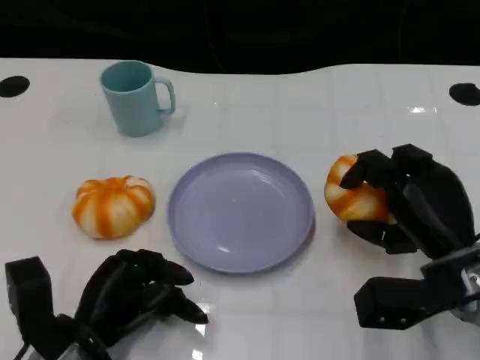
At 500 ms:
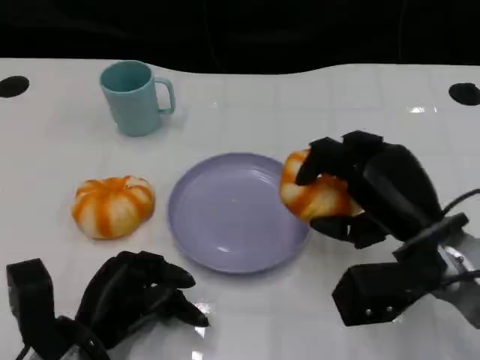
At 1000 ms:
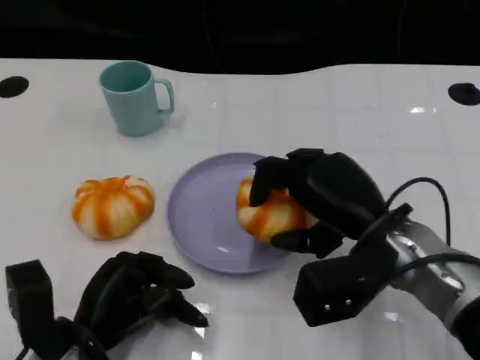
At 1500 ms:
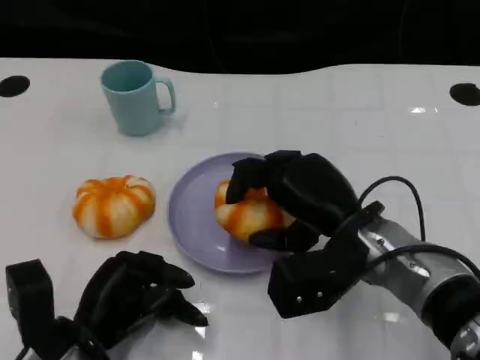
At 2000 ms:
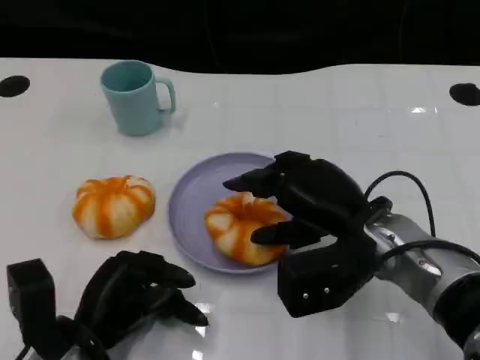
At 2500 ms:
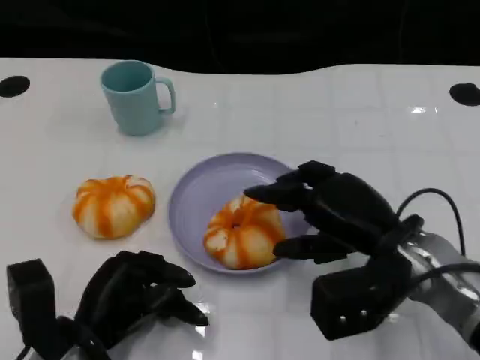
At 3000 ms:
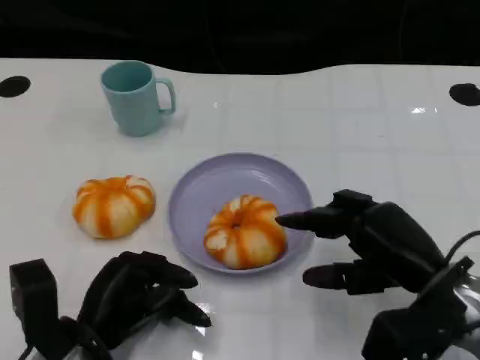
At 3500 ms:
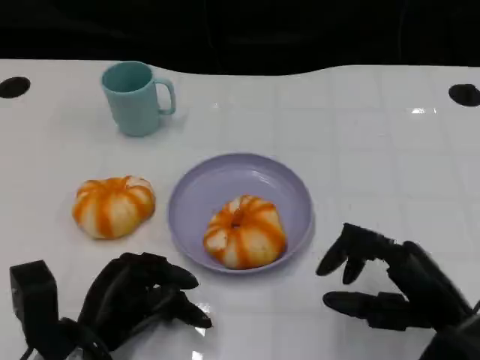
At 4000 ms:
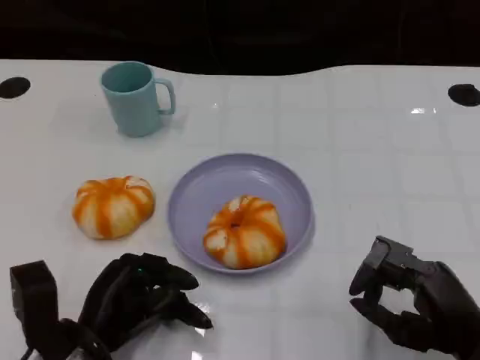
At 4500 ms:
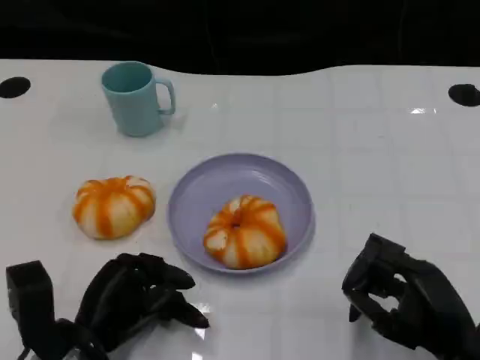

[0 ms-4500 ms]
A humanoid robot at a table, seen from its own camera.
Task of the whole recording: Grasp the bread from the table and place it into the plate.
0 ms to 2000 ms: The right hand goes some 10 cm to the left.
2000 ms to 4500 ms: The right hand goes about 15 cm backward, to the right and downward.

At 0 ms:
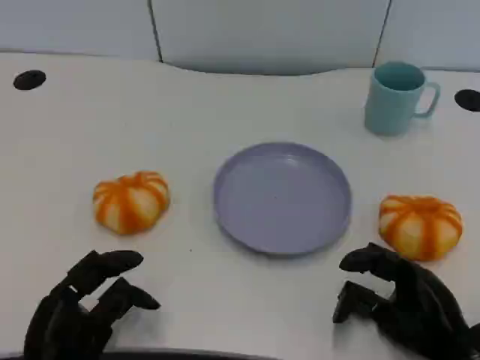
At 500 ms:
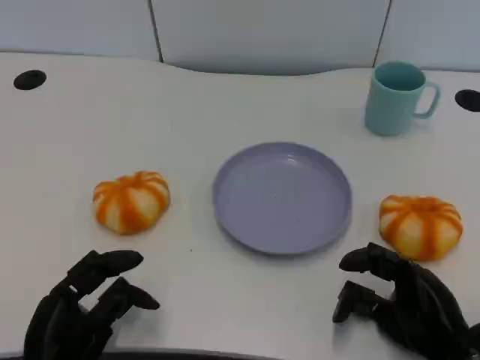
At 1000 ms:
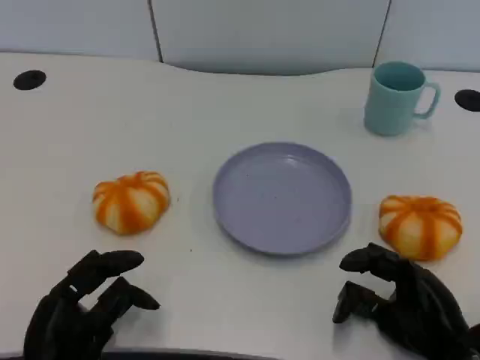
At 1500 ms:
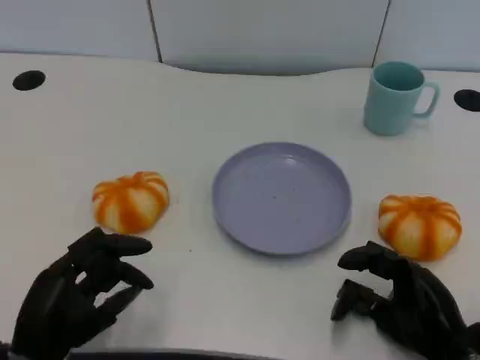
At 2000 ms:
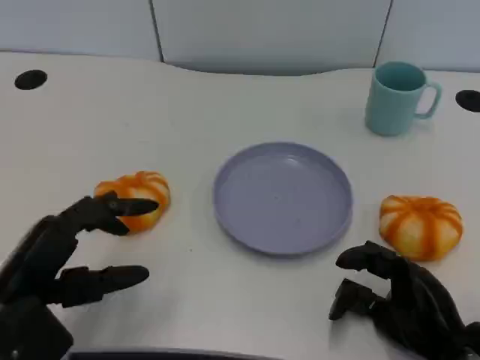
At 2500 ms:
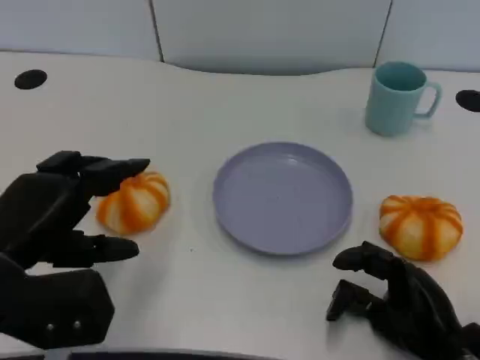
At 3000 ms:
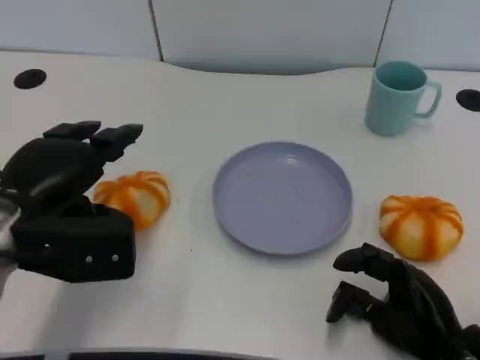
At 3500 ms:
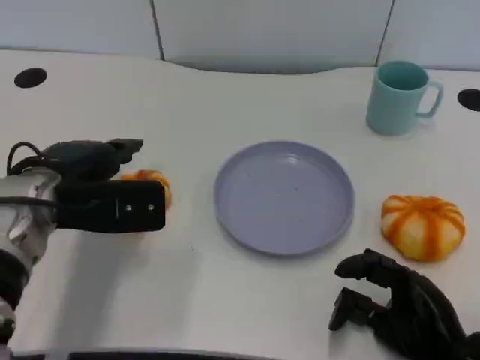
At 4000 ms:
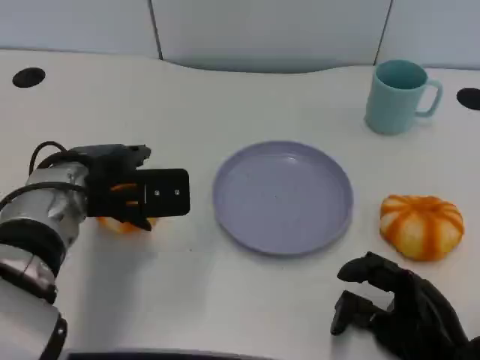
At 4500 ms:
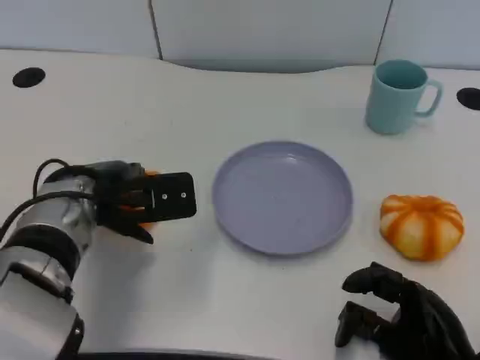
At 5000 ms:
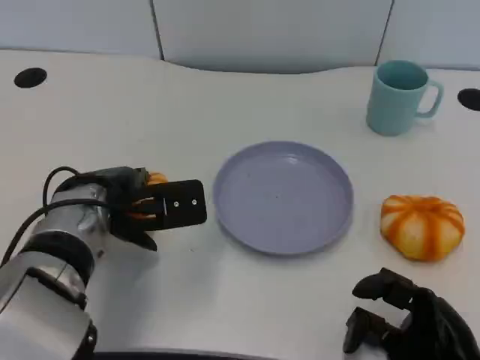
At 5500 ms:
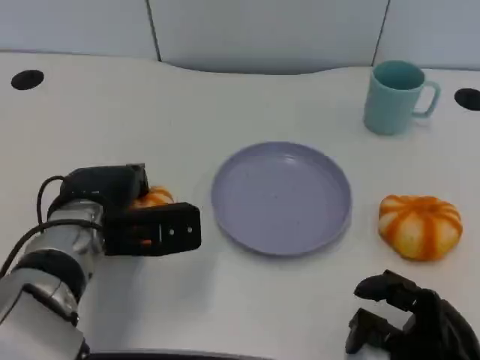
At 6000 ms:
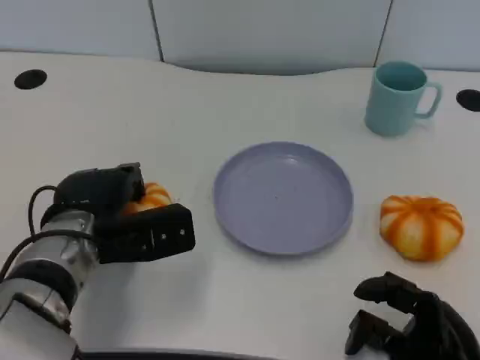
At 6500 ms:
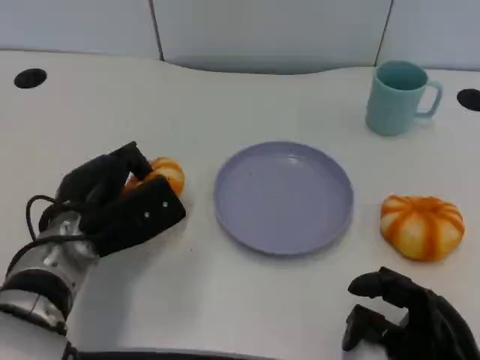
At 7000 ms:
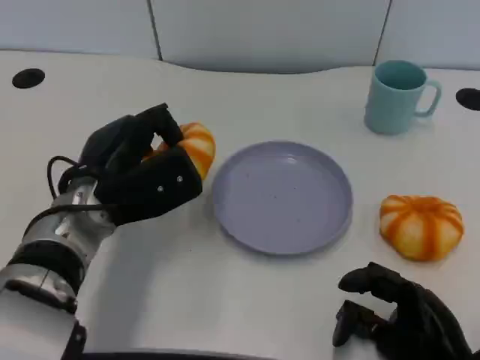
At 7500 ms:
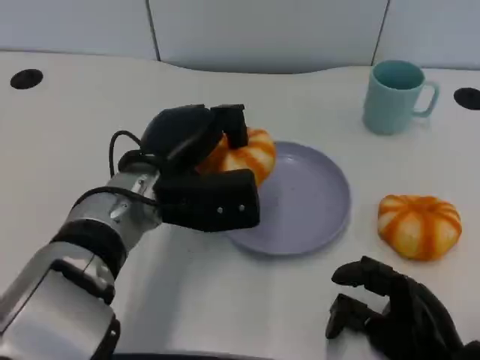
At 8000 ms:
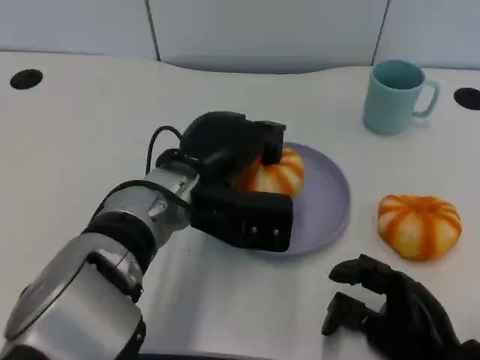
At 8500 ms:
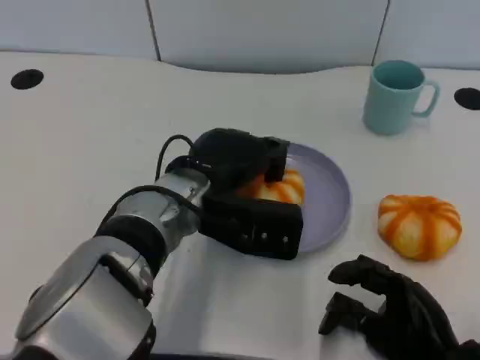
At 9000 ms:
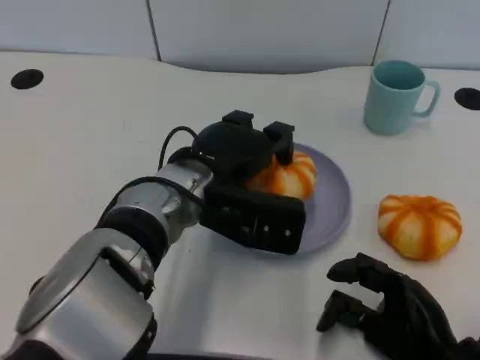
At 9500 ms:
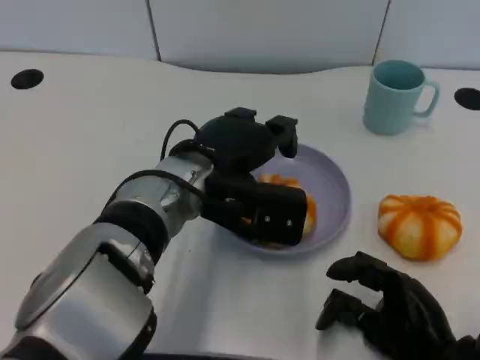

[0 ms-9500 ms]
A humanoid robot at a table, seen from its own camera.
Task of the whole recording: Grasp the bread from the table and place it into the plate.
0 ms to 2000 ms: The left hand shifts about 10 cm upward.
2000 ms to 4000 ms: The left hand is displaced forward and to the right by roughly 15 cm.
4000 ms to 5500 ms: There are only small adjustments of the hands.
5500 ms to 7500 ms: The left hand shifts about 5 cm to the right.

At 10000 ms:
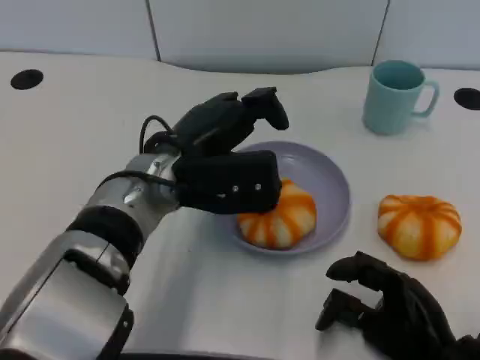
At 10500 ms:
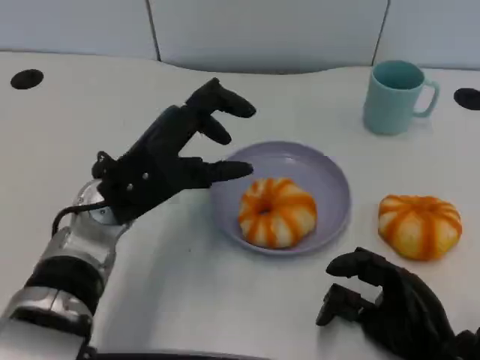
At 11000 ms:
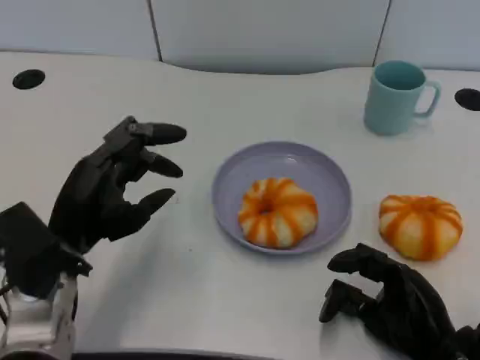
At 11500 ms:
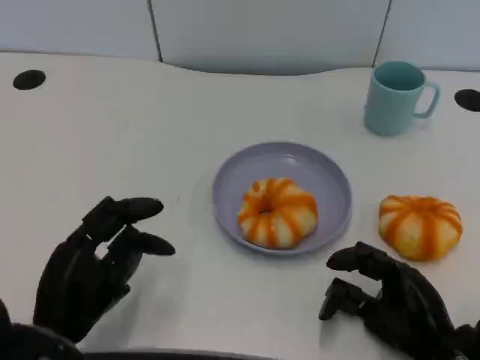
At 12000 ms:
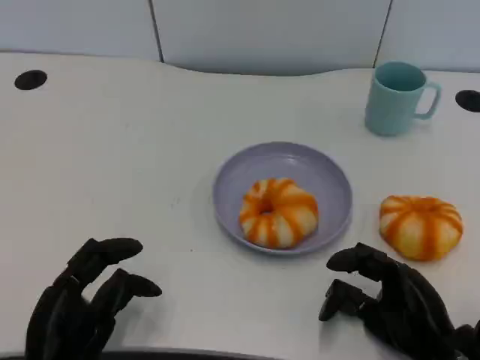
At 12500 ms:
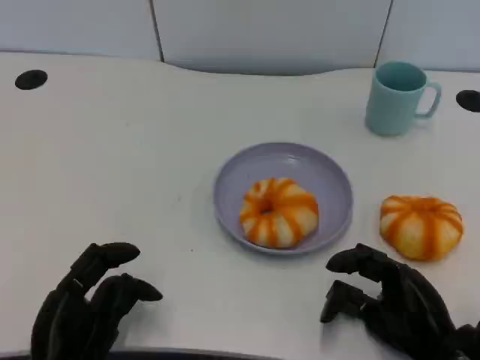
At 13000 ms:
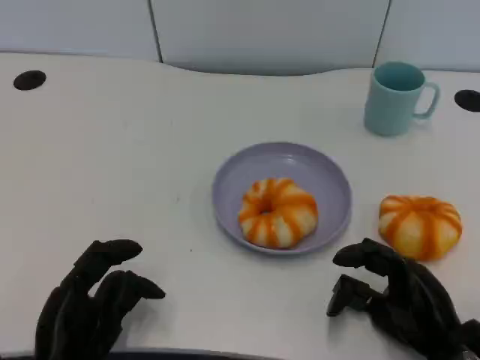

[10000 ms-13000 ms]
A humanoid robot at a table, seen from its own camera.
Task of the whole recording: Grasp the bread from the table and place it into the plate.
10000 ms to 11500 ms: The left hand shifts about 20 cm backward, to the left and downward.
11500 ms to 13000 ms: The hands move only a little.

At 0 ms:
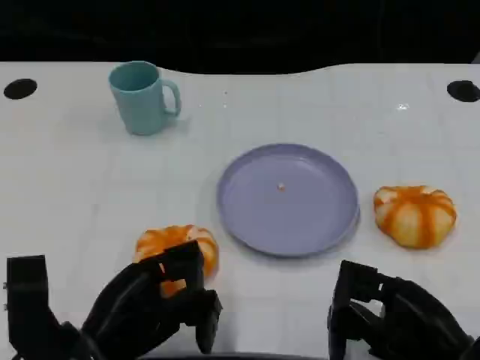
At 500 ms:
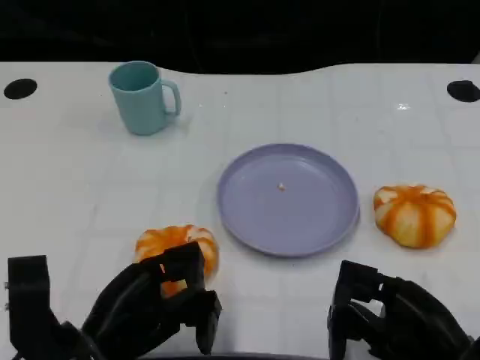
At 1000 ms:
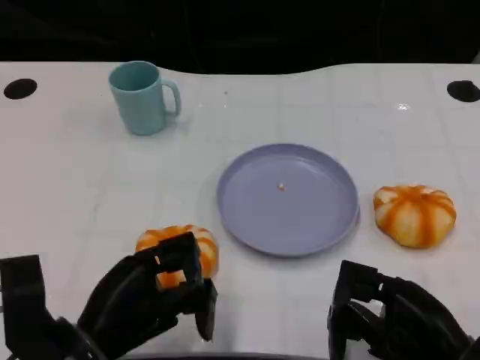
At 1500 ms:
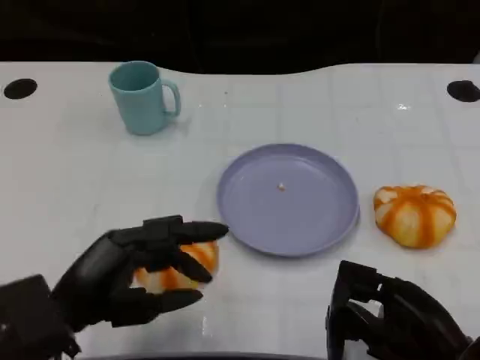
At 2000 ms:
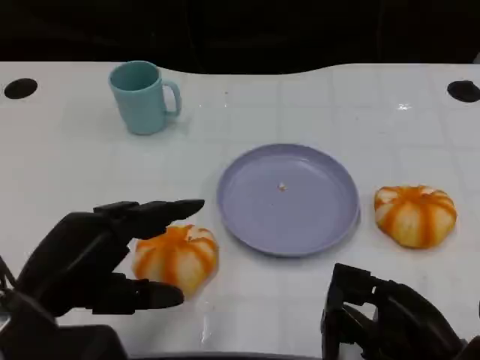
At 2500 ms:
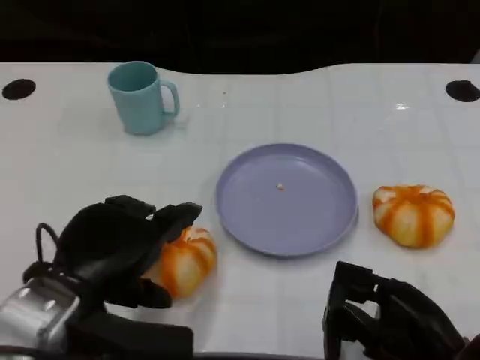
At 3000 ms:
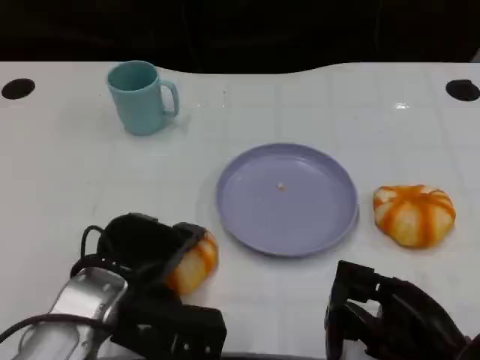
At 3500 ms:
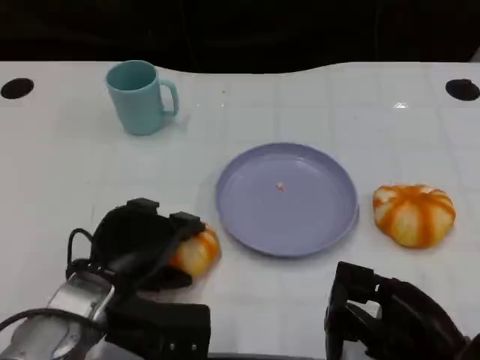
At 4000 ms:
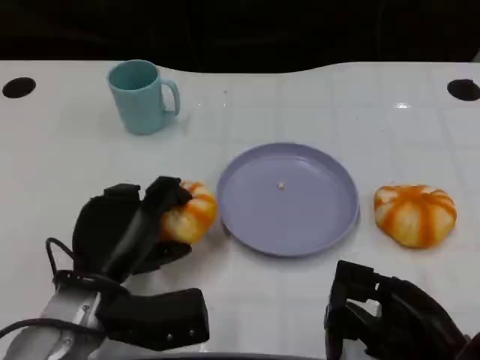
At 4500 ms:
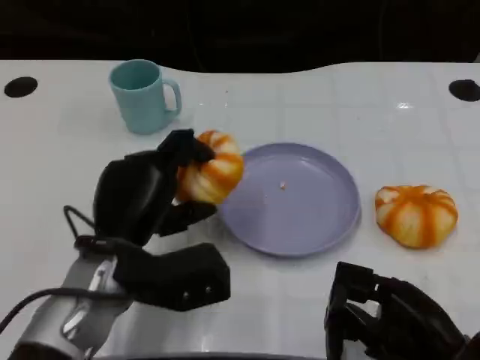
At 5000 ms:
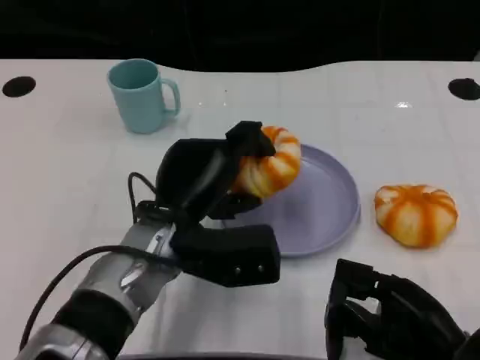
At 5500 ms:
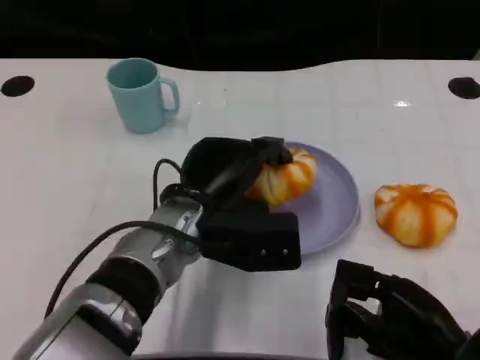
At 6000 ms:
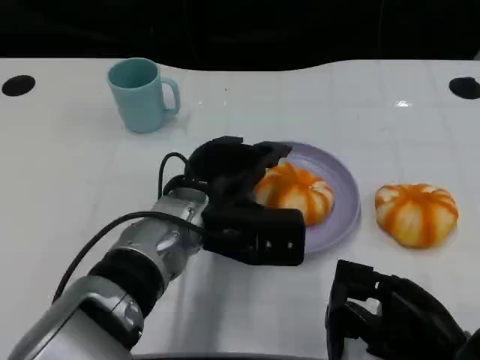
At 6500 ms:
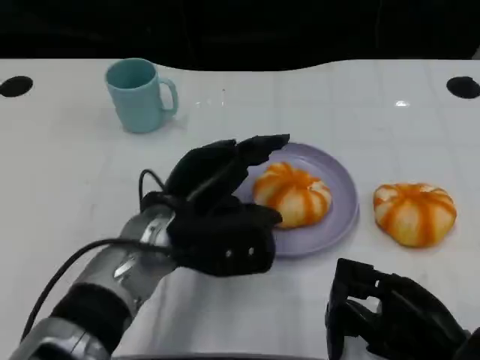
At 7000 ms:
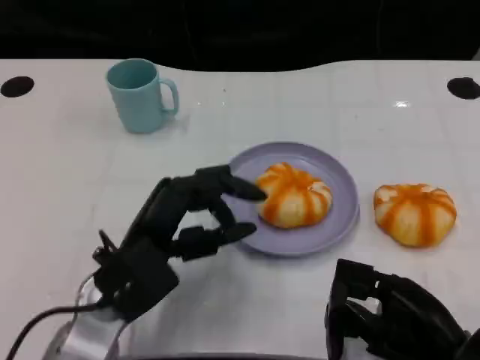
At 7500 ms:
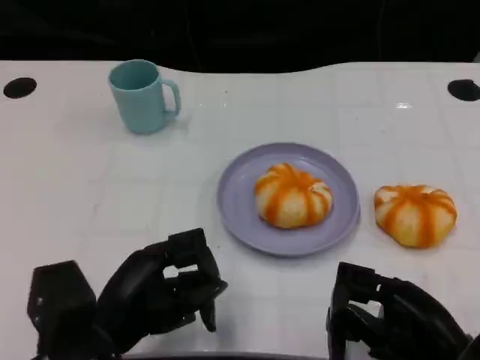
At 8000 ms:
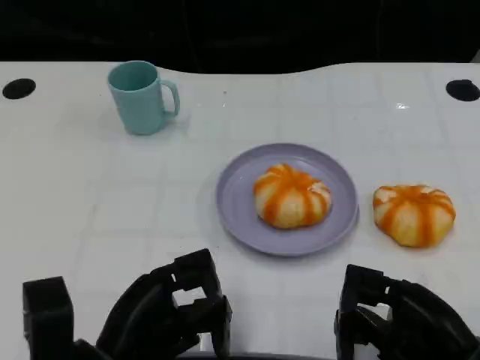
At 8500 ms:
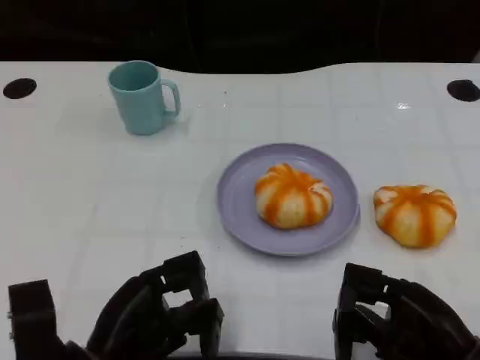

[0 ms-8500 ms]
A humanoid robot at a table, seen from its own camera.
Task of the whole recording: Grasp the bread from the table and place it into the plate.
0 ms to 2000 ms: The left hand moves upward, about 10 cm.
2000 ms to 4000 ms: The left hand goes about 10 cm downward, forward and to the right.
4000 ms to 6500 ms: The left hand shifts some 5 cm to the right.
6500 ms to 8500 ms: The left hand heads backward, to the left and downward, covering approximately 15 cm.
